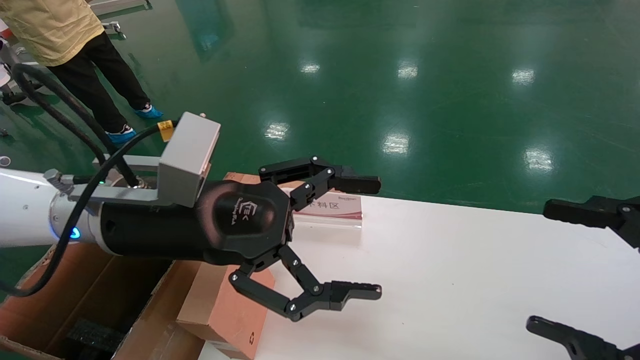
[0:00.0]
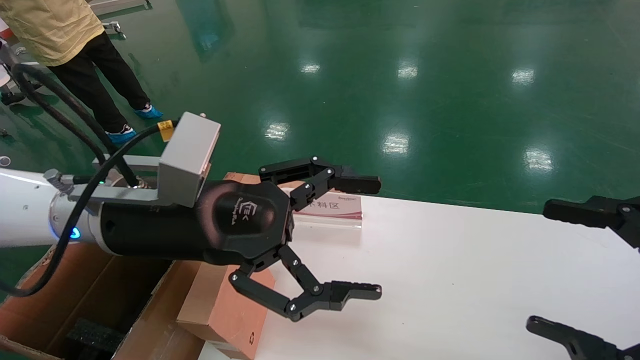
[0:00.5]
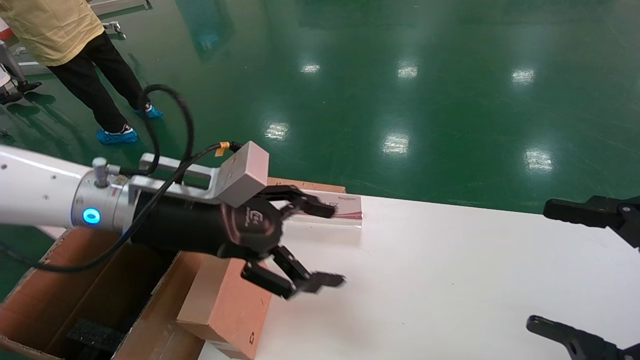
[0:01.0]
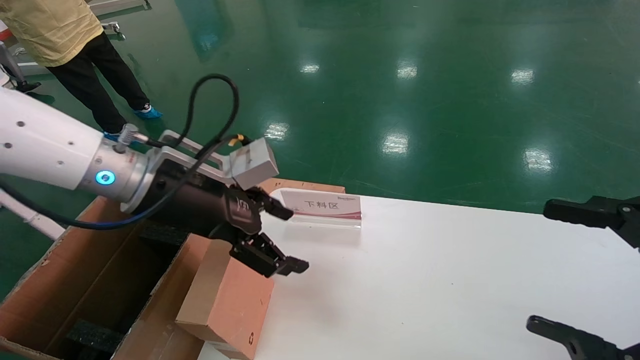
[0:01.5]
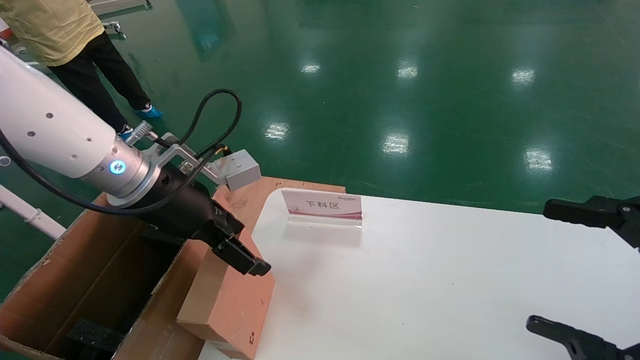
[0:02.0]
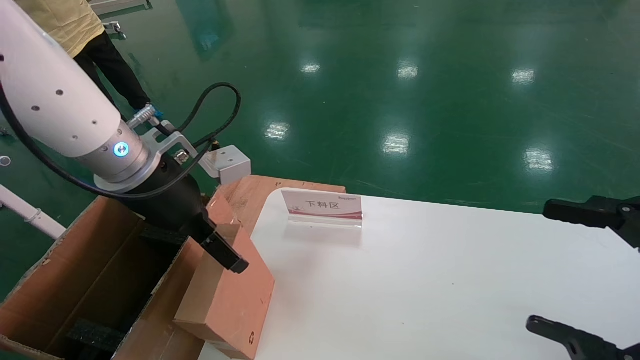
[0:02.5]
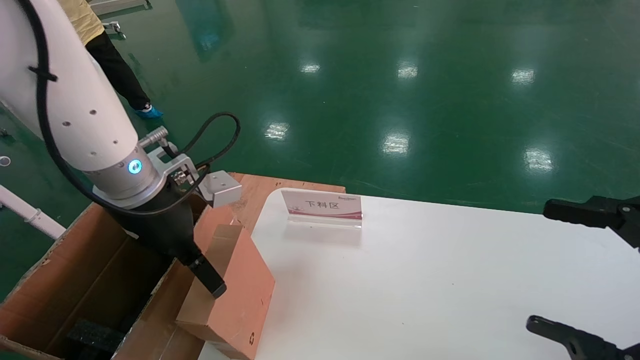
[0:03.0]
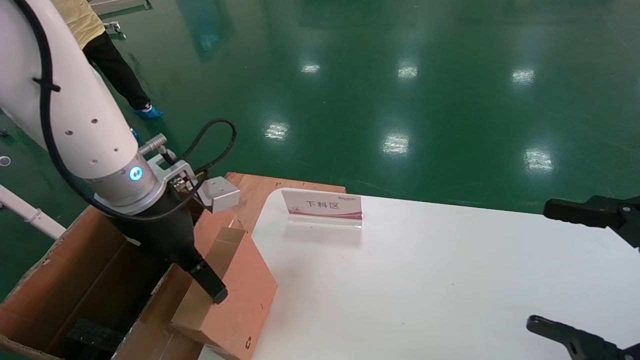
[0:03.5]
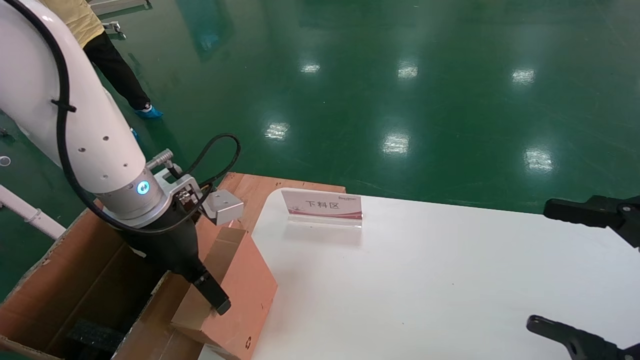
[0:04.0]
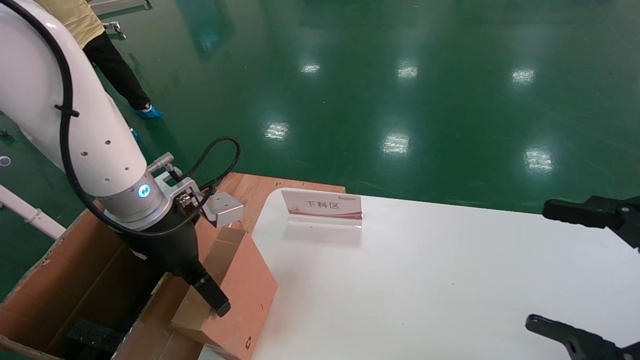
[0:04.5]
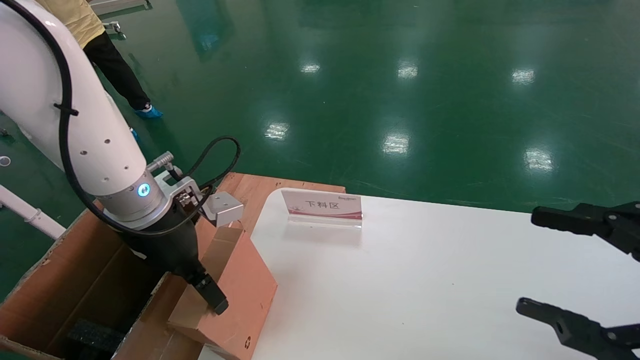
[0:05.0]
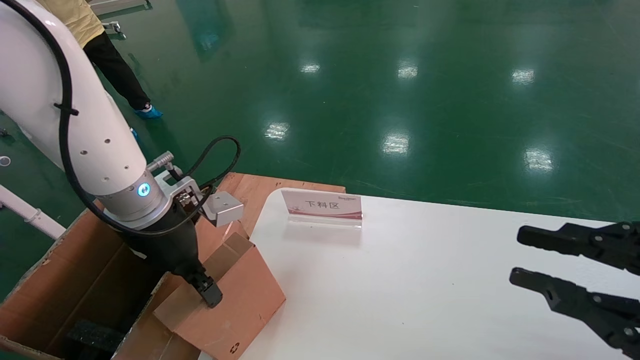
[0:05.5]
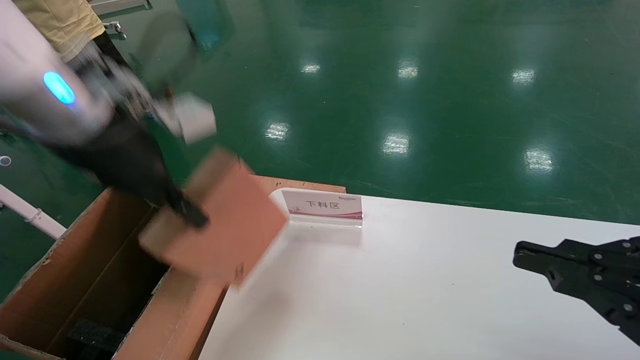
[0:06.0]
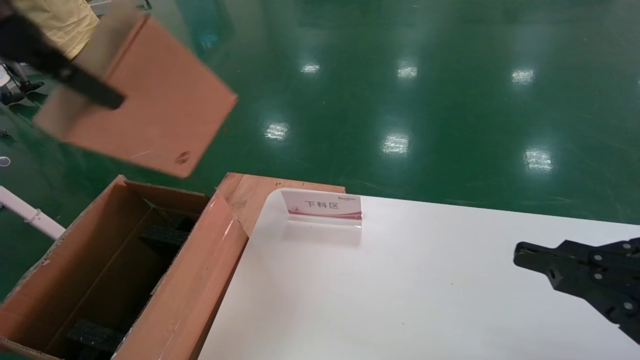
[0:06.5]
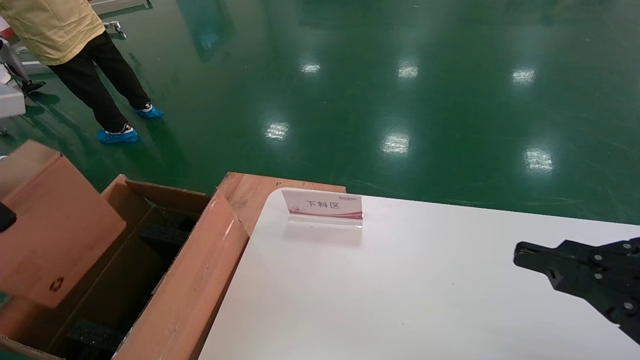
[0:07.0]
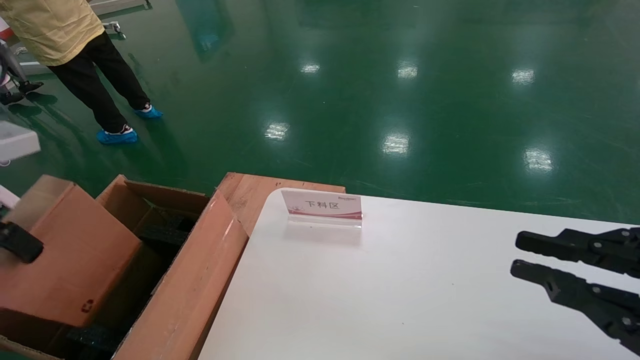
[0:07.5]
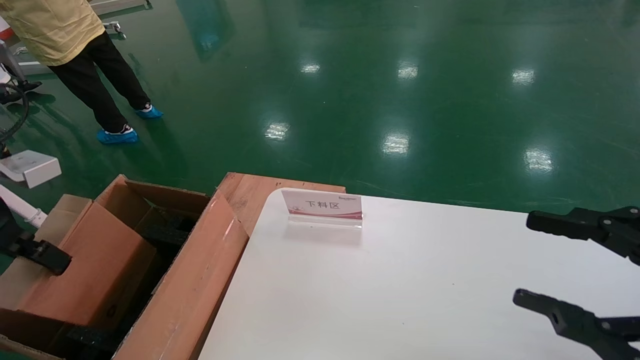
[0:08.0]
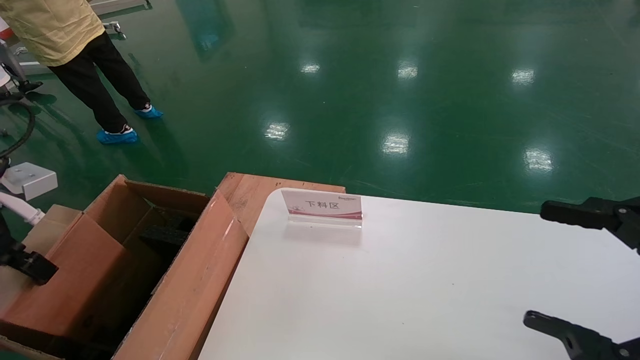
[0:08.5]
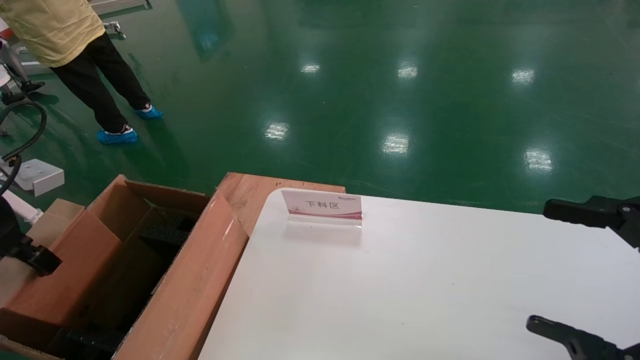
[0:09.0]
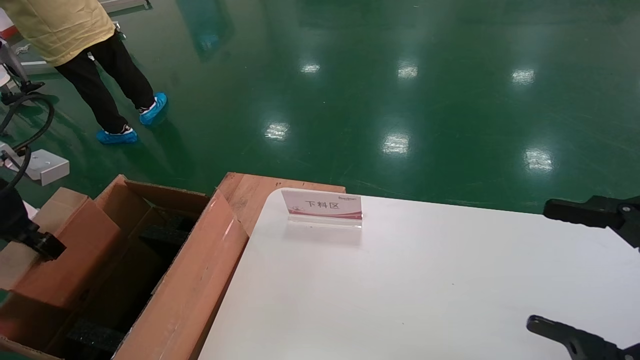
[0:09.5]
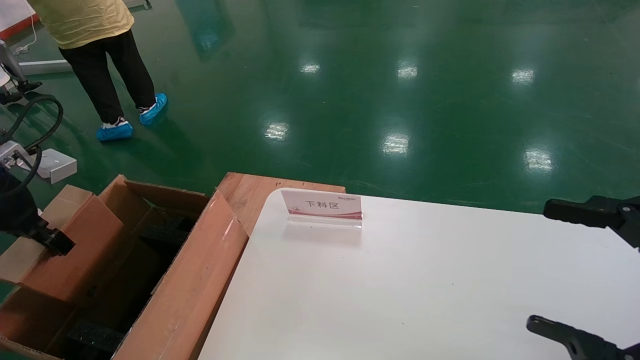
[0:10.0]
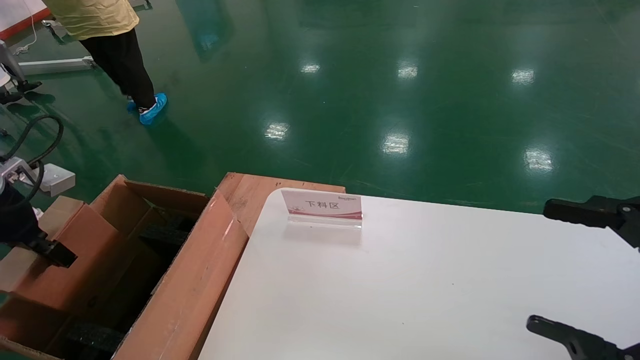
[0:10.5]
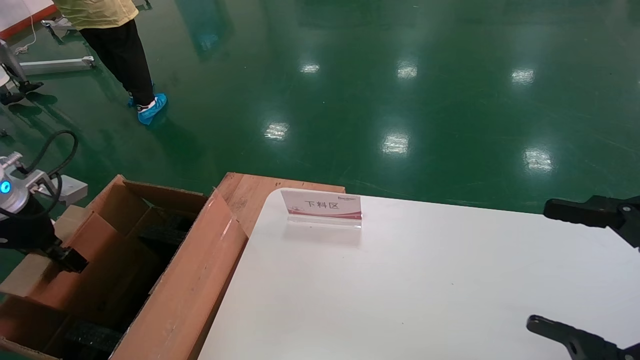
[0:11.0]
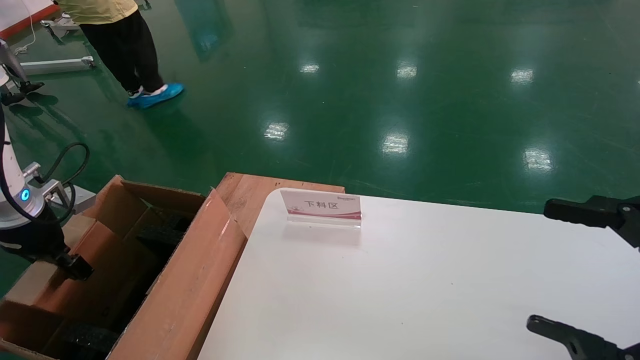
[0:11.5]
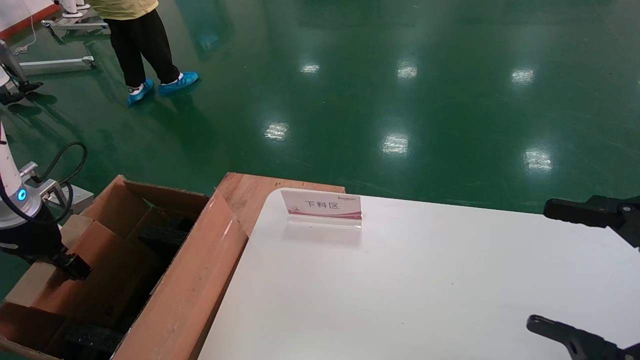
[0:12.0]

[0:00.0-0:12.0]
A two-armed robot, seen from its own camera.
Task of the whole recording: pick up the small cardboard box and load it into the large cardboard box.
Step, 0:01.0 to 0:05.5: Pick up the mouse and power cord box.
0:00.0 to 0:02.0: The left gripper shifts about 5 cm forward.
0:04.0 to 0:06.0: The left gripper shifts roughly 15 cm upward, and closes up; the right gripper closes up.
0:06.0 to 0:08.0: The right gripper opens its fingers. Meanwhile the left gripper travels to the left and downward by roughly 20 cm.
0:08.0 to 0:10.0: The left gripper shifts approximately 5 cm forward. The right gripper opens up.
0:10.0 to 0:12.0: The left gripper travels downward by some 5 cm.

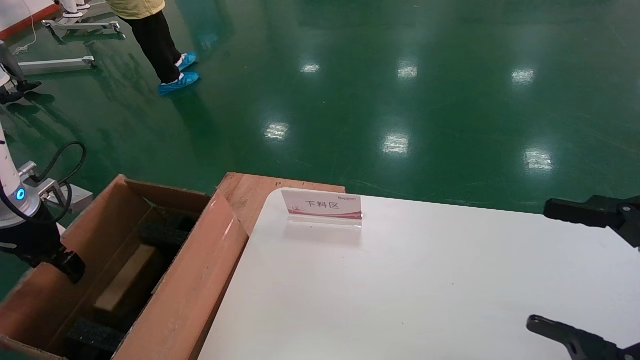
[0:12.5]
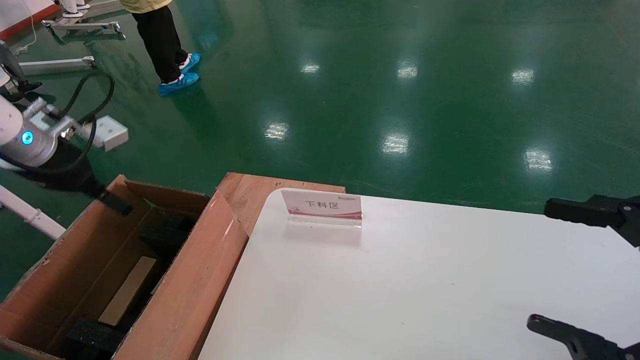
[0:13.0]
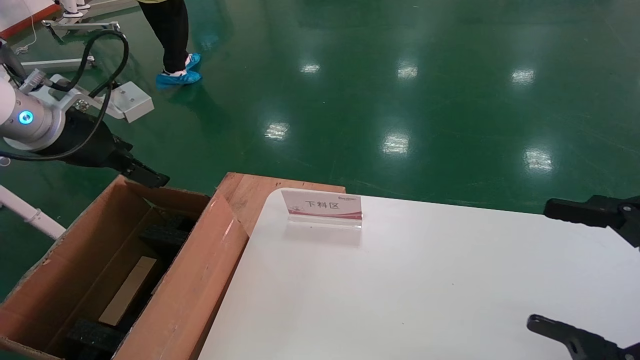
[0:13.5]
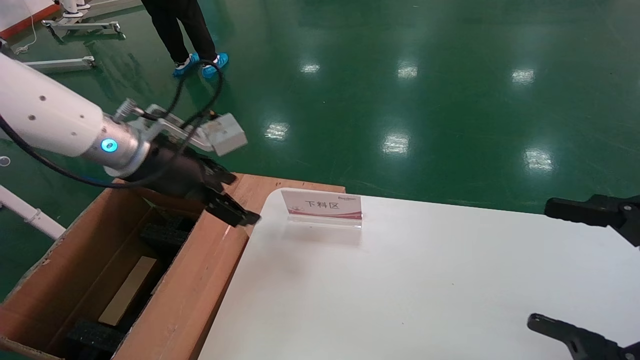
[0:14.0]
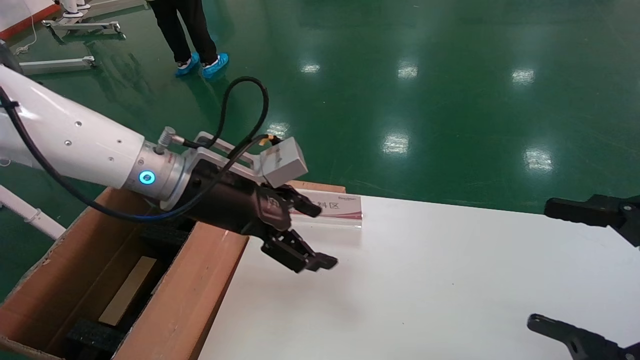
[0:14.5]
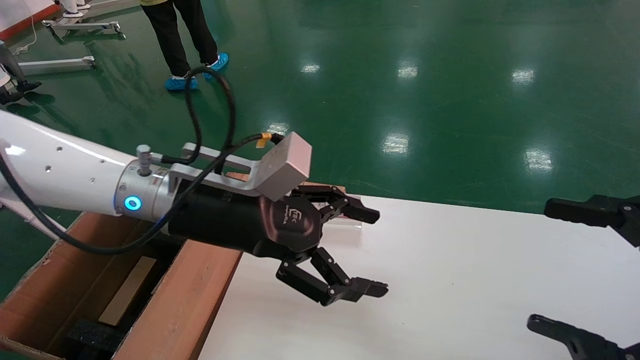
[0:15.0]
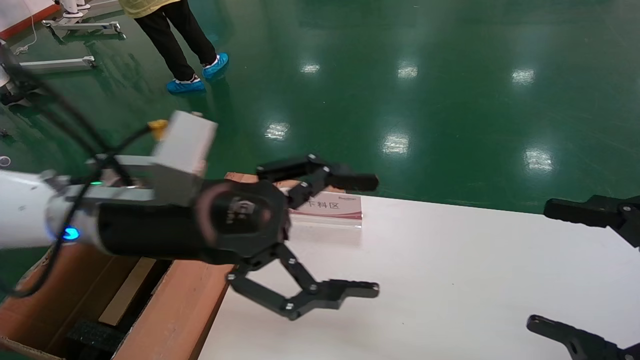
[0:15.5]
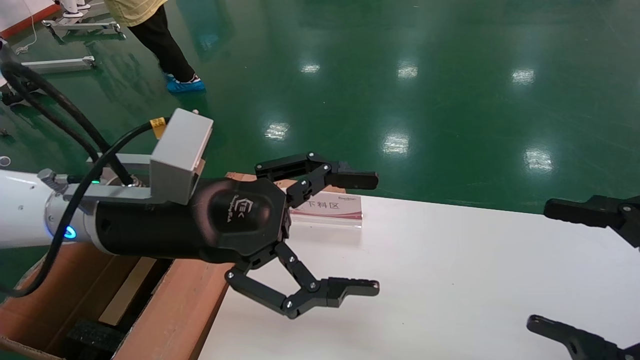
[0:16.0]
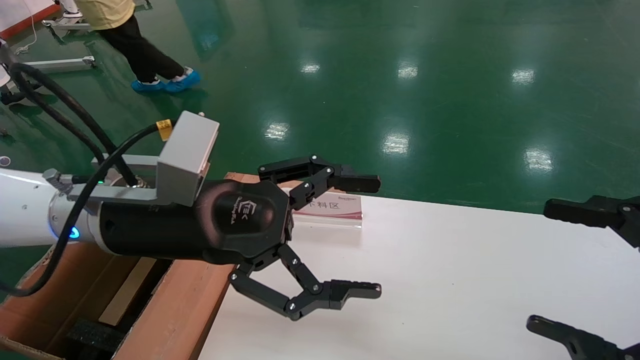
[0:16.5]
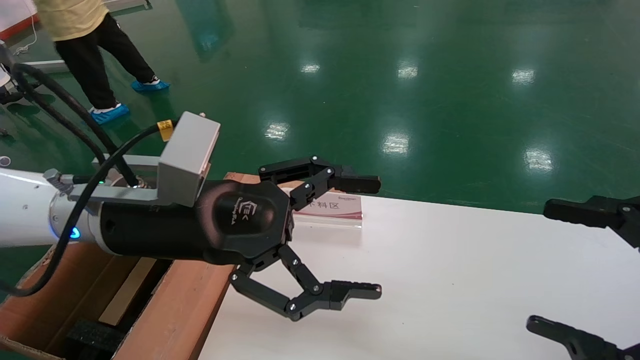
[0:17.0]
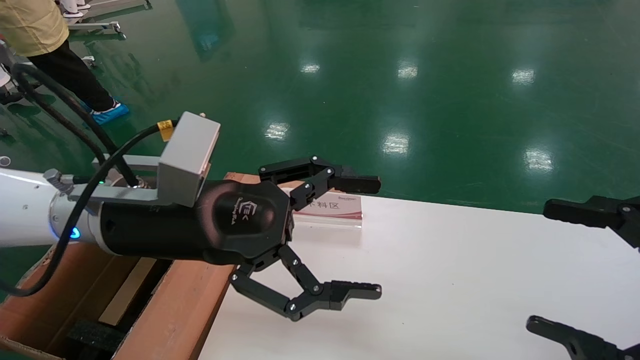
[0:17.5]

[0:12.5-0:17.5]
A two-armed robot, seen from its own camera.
Task of the whole recording: pick up the small cardboard box and load it into the large cardboard box.
0:12.5 to 0:15.0: The left gripper moves to the right, about 30 cm, and opens.

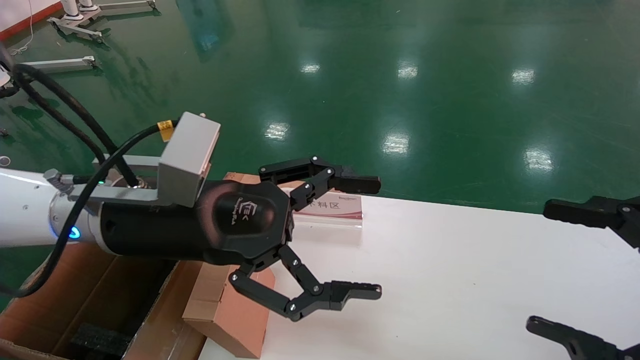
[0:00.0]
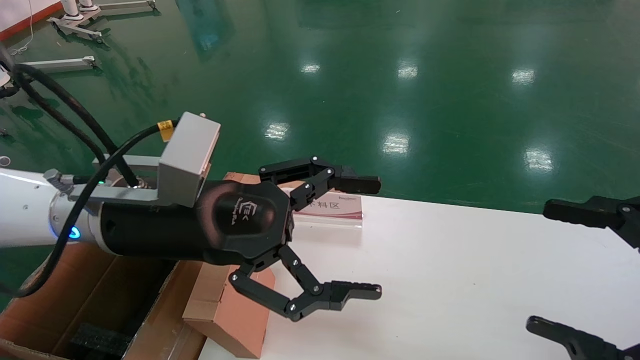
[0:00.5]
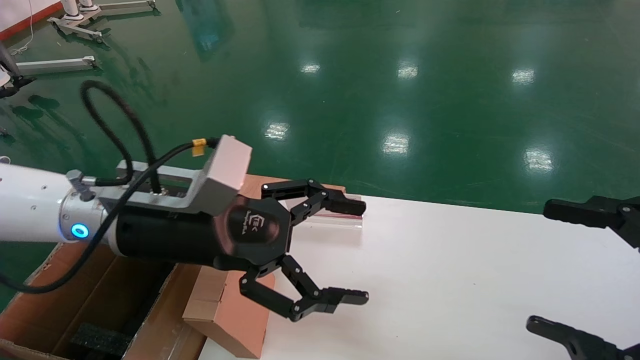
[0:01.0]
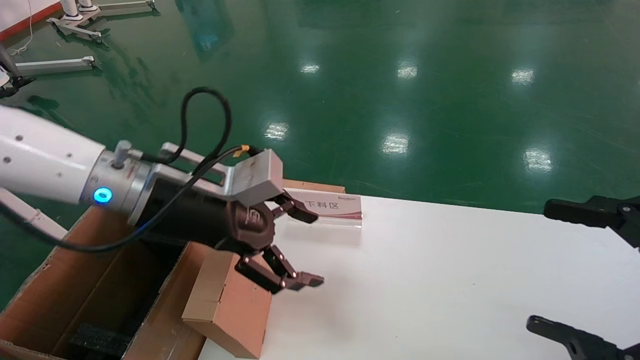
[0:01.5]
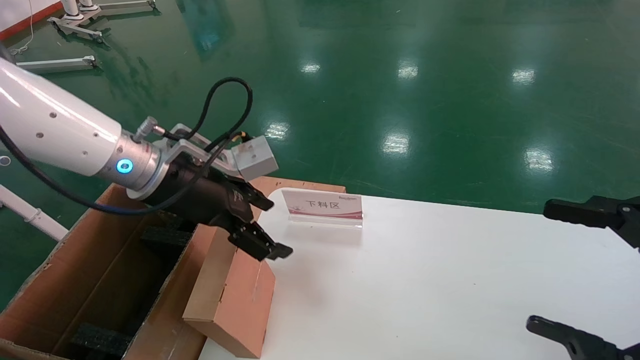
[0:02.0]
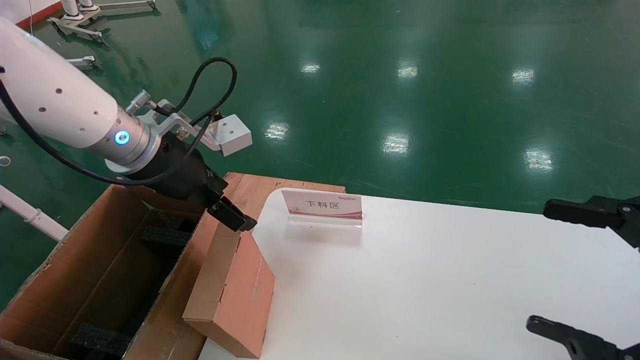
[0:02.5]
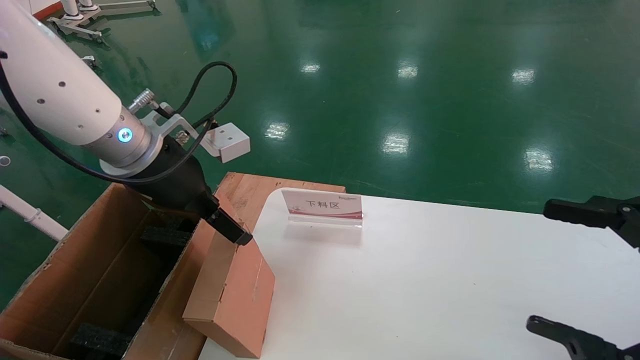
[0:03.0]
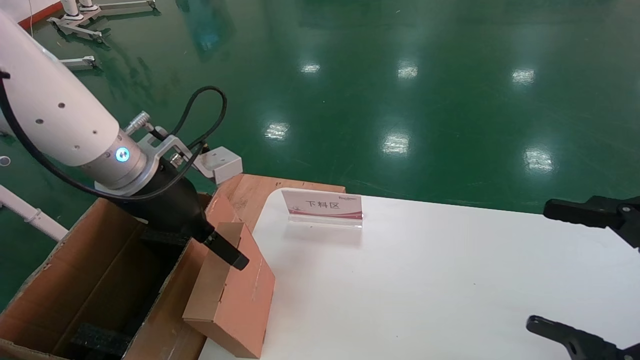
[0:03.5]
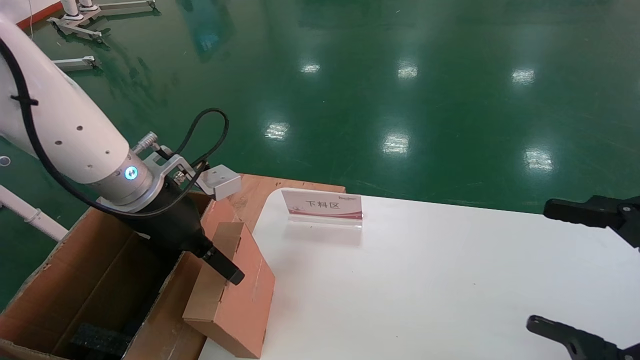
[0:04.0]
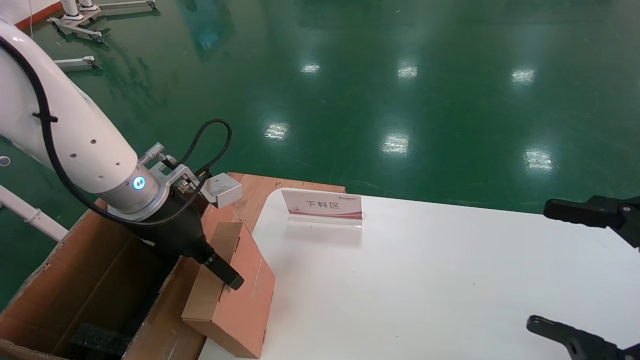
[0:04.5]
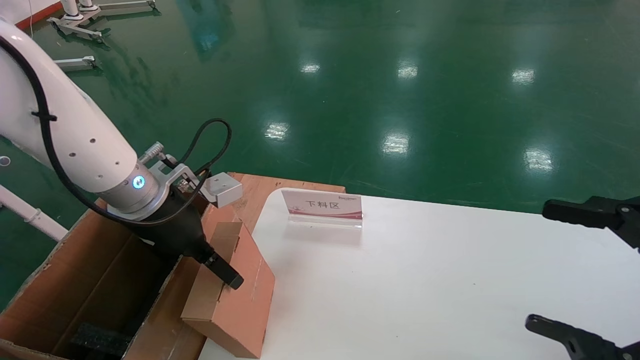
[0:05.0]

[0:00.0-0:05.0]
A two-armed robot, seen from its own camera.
Task of the whole recording: pick up the small cardboard box and load it into the large cardboard box.
0:00.0 to 0:02.5: The left gripper shifts about 10 cm forward and to the left.
0:02.5 to 0:05.0: The left gripper is displaced downward by some 5 cm.
